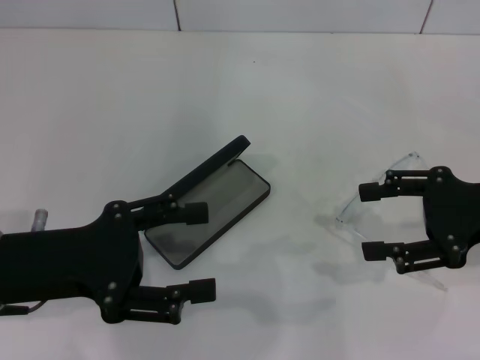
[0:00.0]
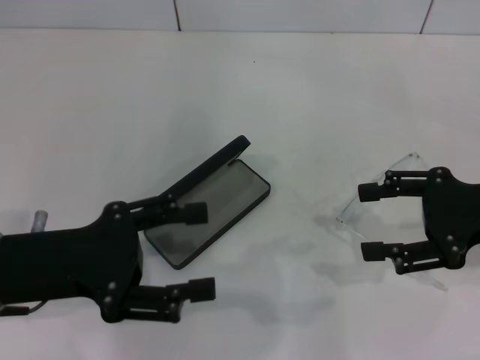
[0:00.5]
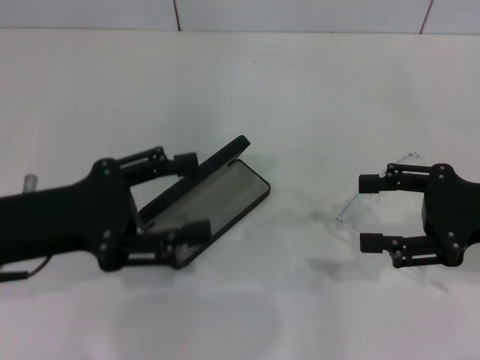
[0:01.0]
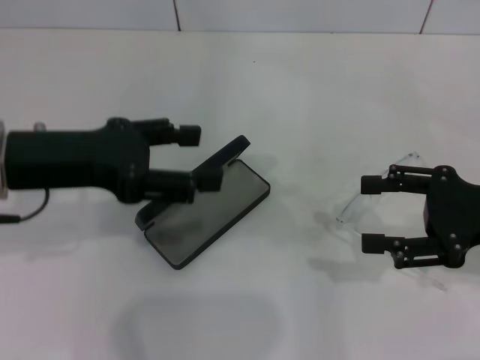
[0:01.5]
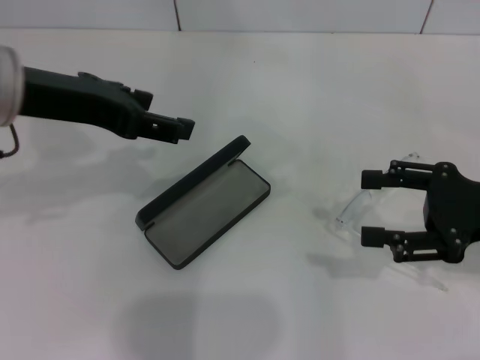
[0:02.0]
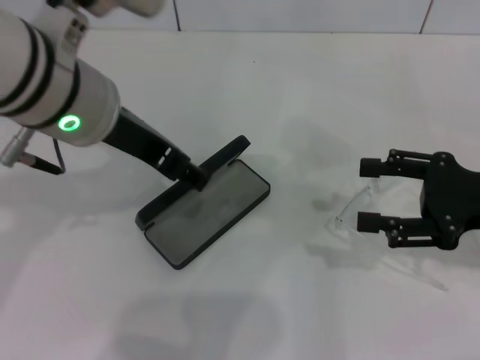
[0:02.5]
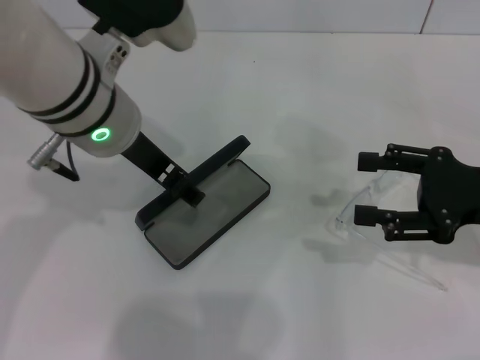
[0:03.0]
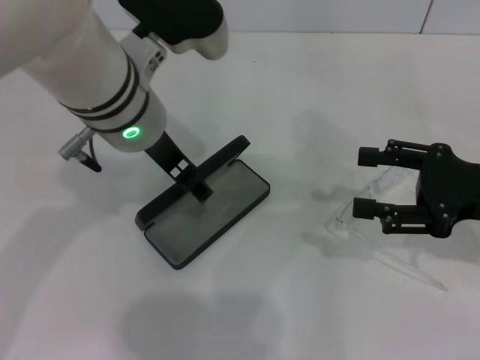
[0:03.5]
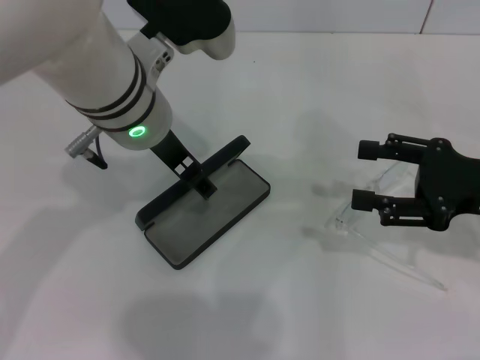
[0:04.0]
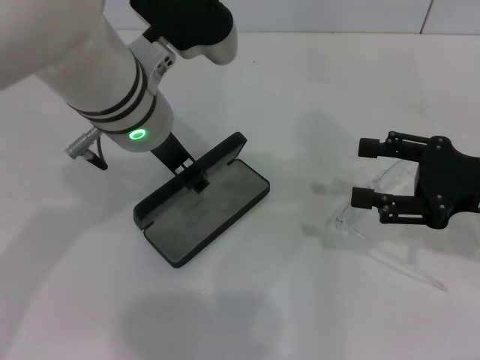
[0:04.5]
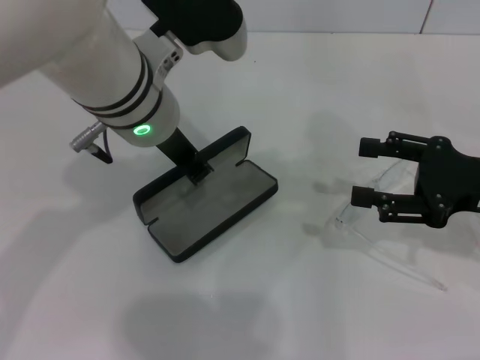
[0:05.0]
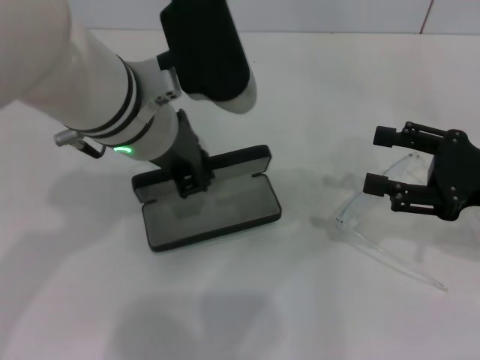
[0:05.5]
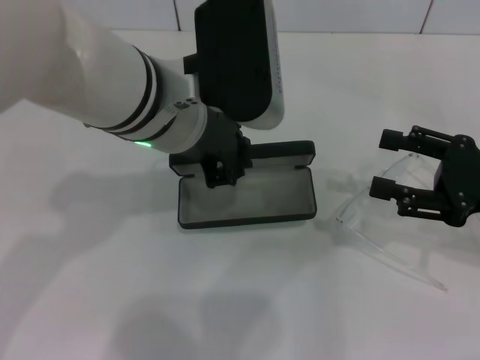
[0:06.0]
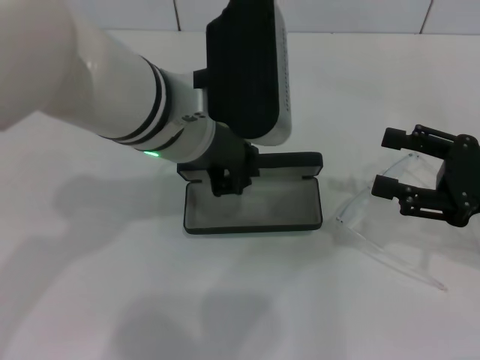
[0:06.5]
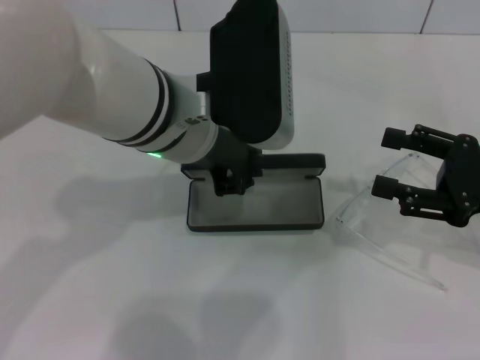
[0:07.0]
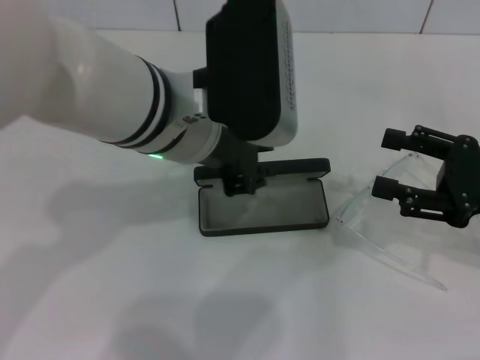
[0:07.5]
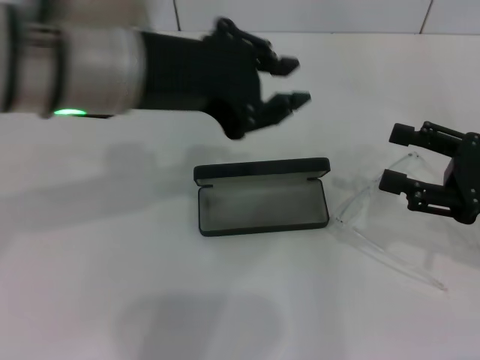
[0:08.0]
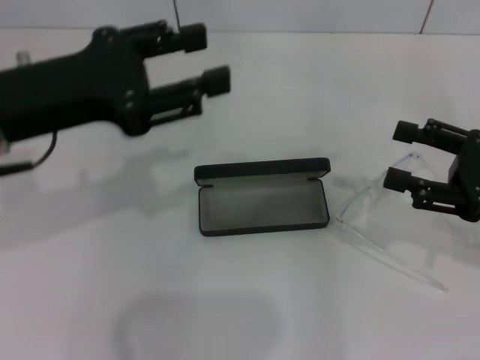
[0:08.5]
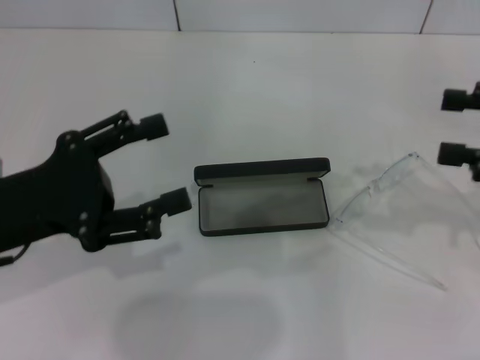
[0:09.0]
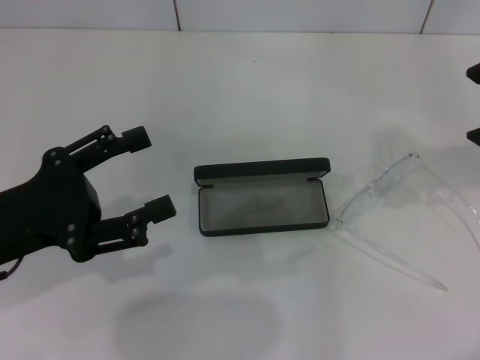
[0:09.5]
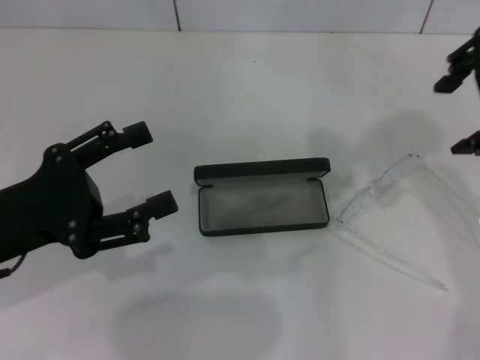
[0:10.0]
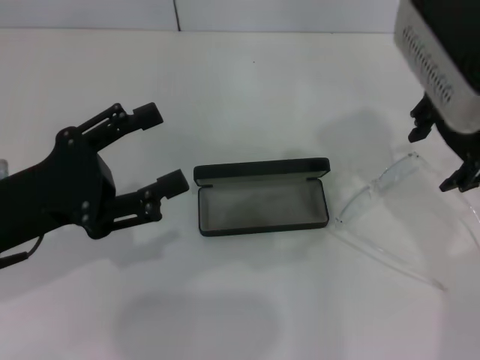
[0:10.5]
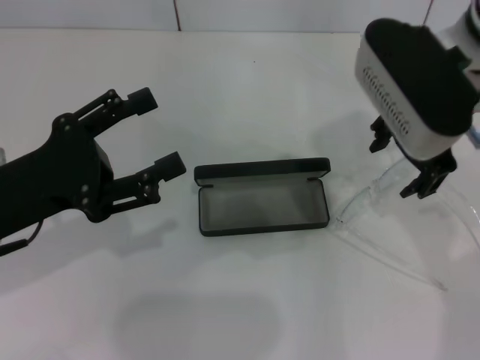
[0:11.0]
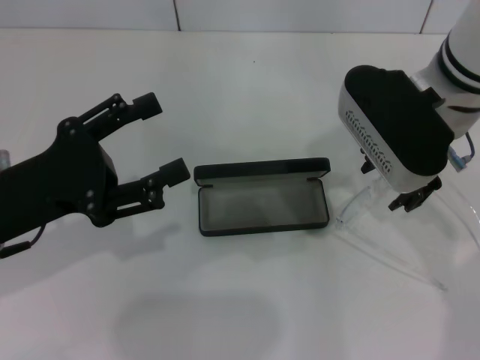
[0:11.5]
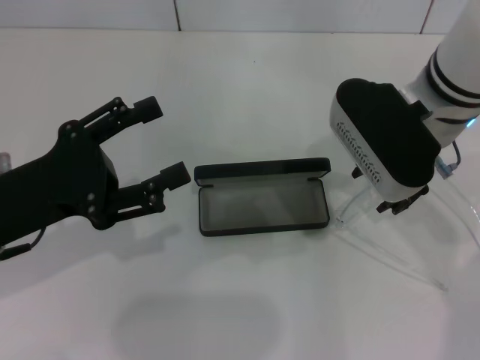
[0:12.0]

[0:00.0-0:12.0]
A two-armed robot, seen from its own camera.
Step, 0:00.0 to 0:04.0: Grab the glasses case with your left hand.
Step, 0:05.0 to 0:07.5: Place the glasses case in the center of the table with your left hand.
0:00.0 to 0:02.0: The left gripper is displaced upward and forward by about 15 cm.
0:02.0 to 0:04.0: The left gripper travels to the right by roughly 10 cm.
0:04.0 to 0:06.0: The left gripper closes.
0:06.0 to 0:08.0: The left gripper goes about 5 cm to the left and upward.
0:08.0 to 0:10.0: The left gripper travels to the left, downward and backward by approximately 20 cm, and opens its fingers. Meanwhile the right gripper goes about 25 cm upward and to the left.
0:10.0 to 0:12.0: The right gripper goes about 15 cm downward and to the left.

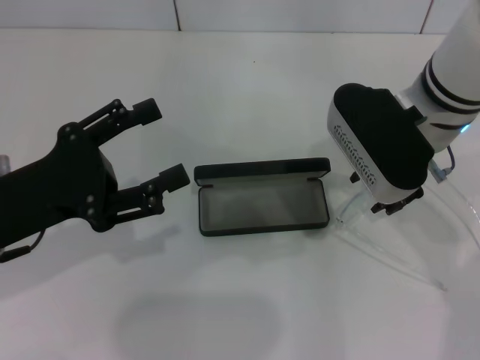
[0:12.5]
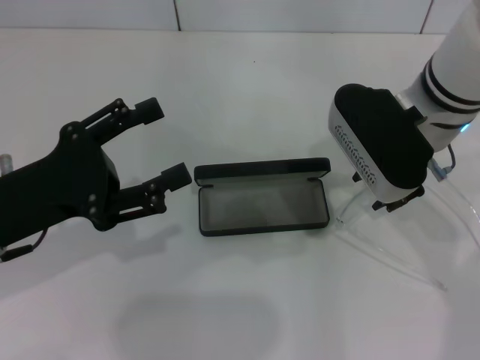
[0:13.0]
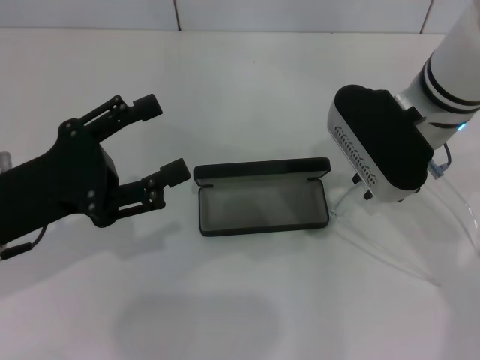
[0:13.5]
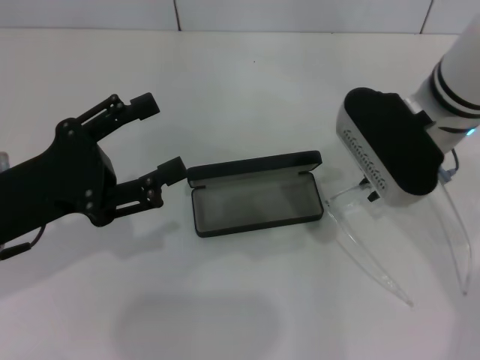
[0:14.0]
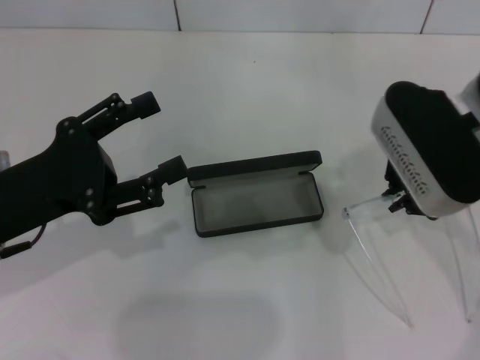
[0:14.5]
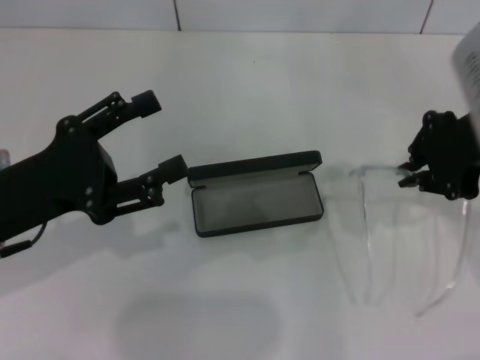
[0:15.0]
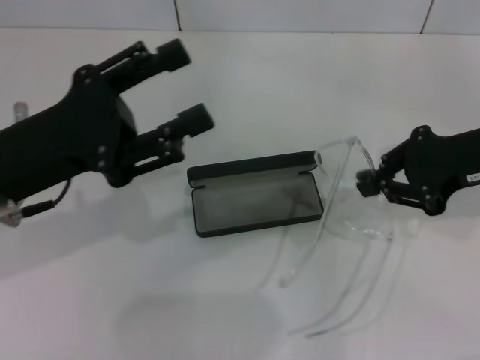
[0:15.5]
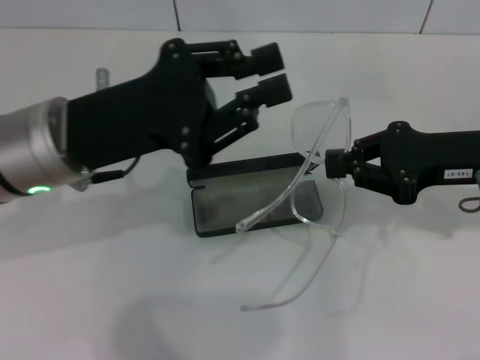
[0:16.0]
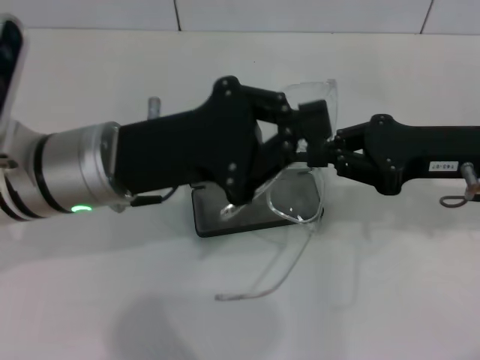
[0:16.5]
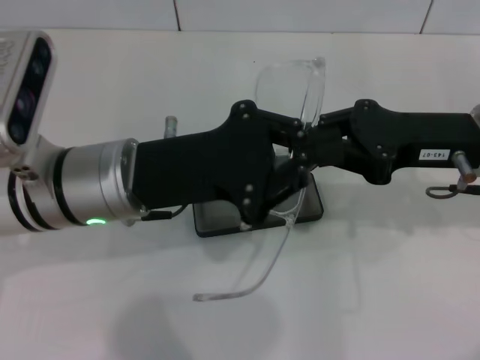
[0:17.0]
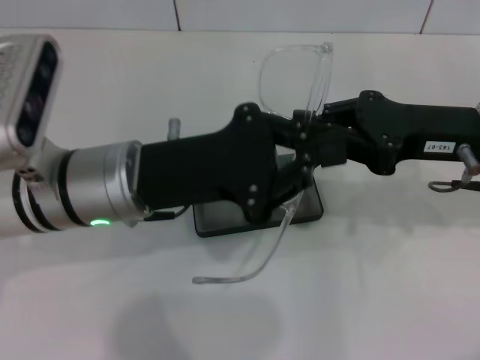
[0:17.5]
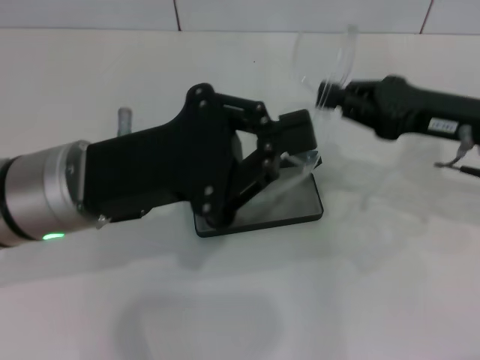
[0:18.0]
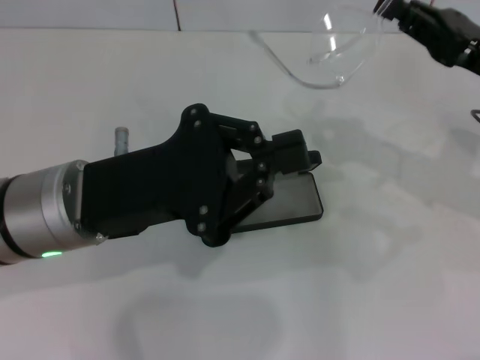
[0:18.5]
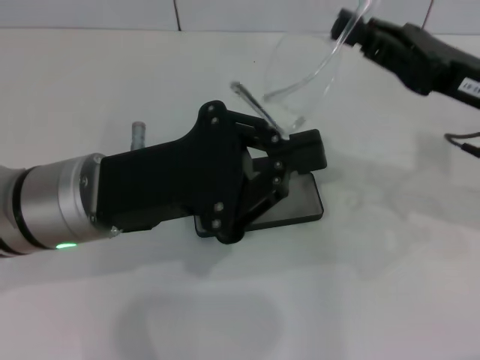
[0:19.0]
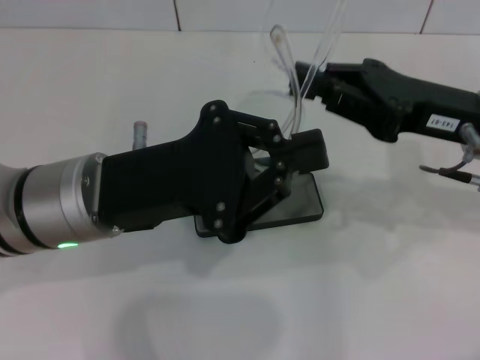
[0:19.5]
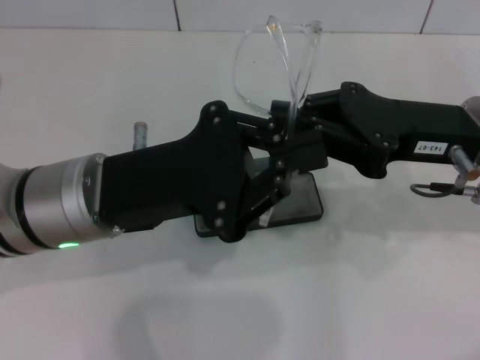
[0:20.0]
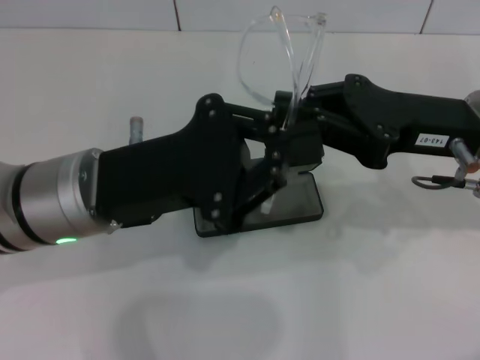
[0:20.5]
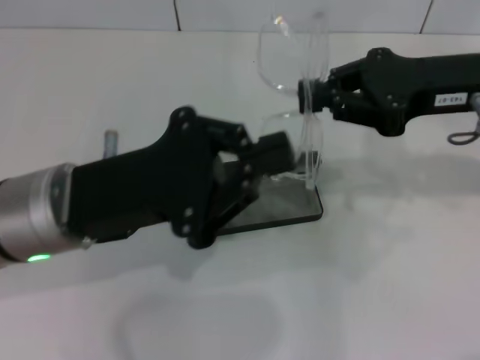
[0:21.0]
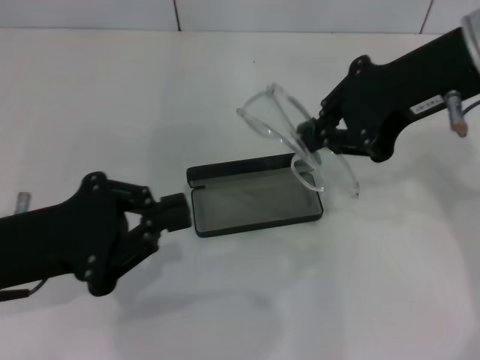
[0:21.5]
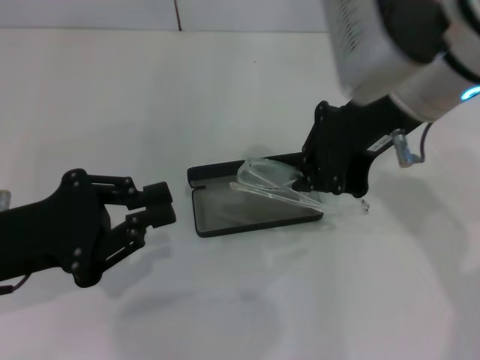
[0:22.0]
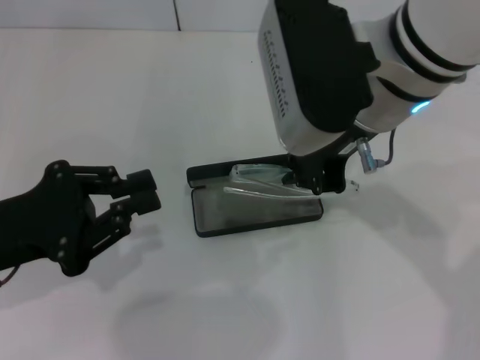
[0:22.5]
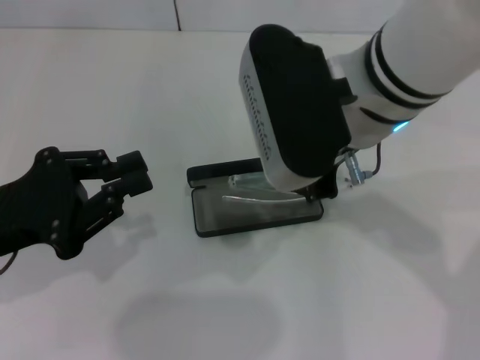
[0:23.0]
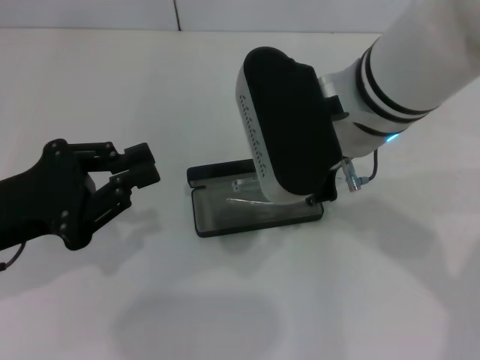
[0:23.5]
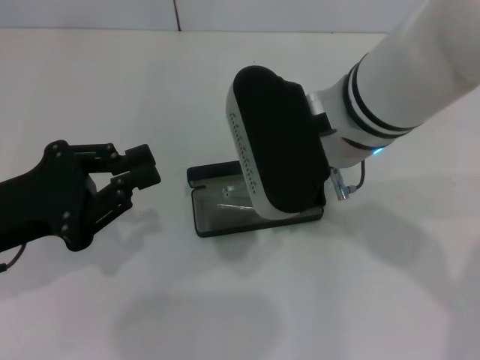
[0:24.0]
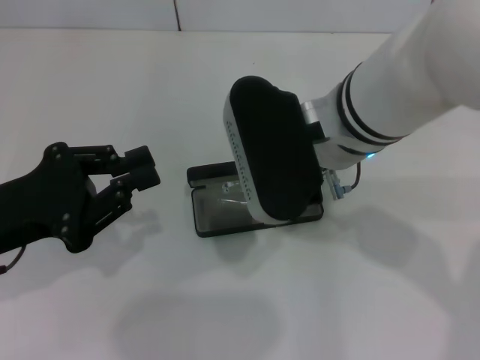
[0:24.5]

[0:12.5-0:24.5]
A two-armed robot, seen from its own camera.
Step, 0:14.0 to 0:20.5: Lift the glasses with your right hand.
0:12.5 to 0:14.5: The right gripper closes up.
0:14.5 to 0:16.5: The right gripper goes approximately 10 cm to the right and downward; the left gripper goes about 10 cm to the right, and closes its fingers.
0:18.5 to 0:20.5: The right gripper is displaced to the left by some 5 cm.
0:20.5 to 0:22.5: The right gripper is displaced to the left and upward by roughly 15 cm; the left gripper moves to the left, roughly 10 cm.
0:22.5 to 0:24.5: The right gripper changes place by some 5 cm.

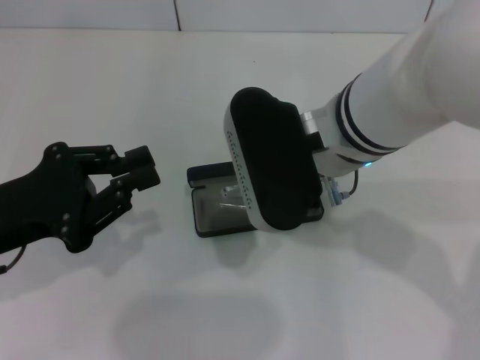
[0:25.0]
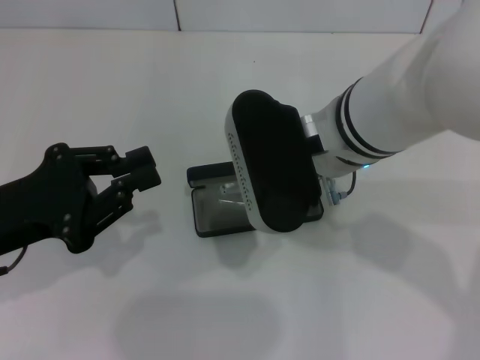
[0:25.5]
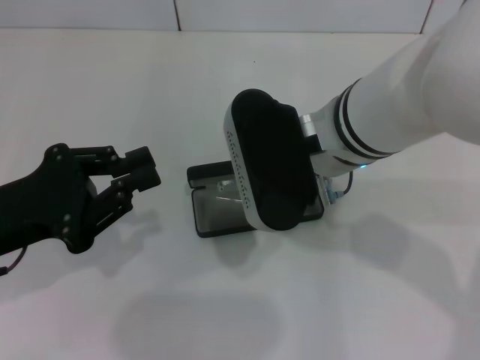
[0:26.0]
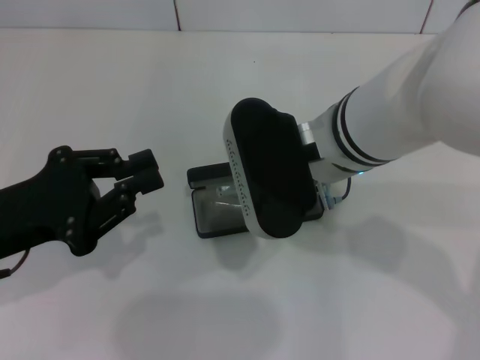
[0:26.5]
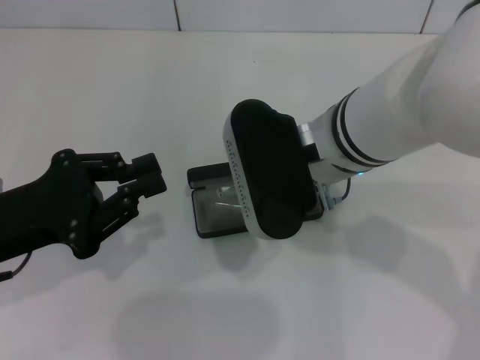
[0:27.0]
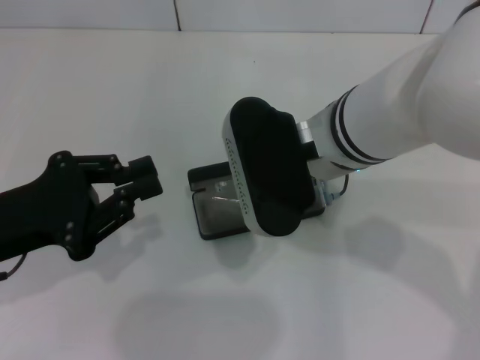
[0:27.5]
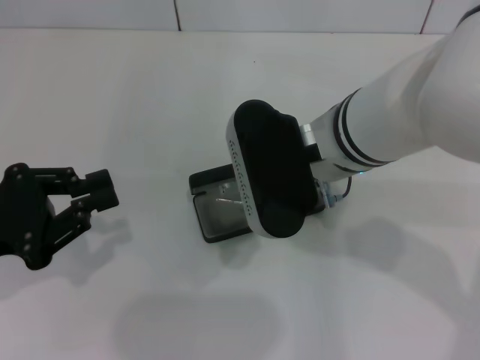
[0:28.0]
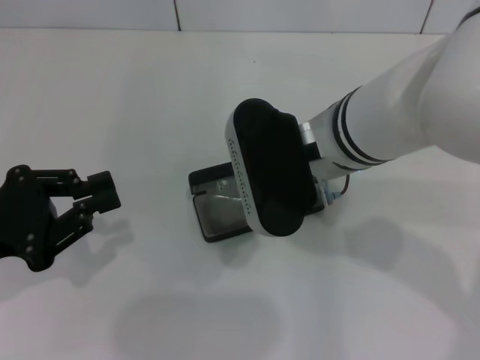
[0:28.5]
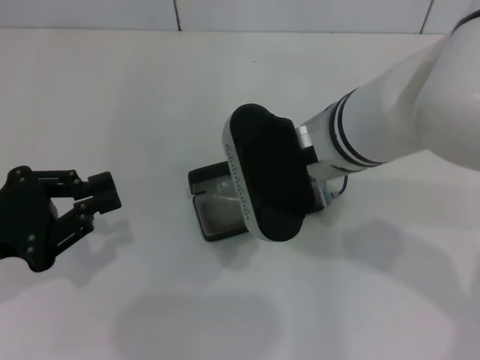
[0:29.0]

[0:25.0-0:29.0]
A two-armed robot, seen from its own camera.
0:25.0 to 0:27.0: Both grippers stay about where they are.
0:27.0 to 0:29.0: The grippers stay close to where they were, moving slightly.
